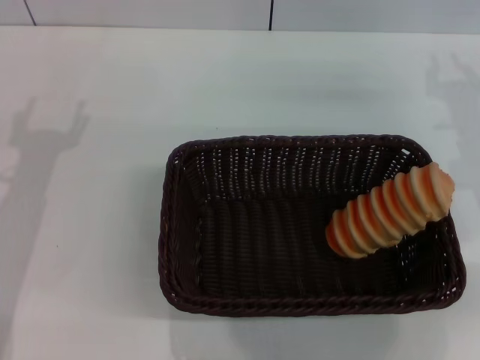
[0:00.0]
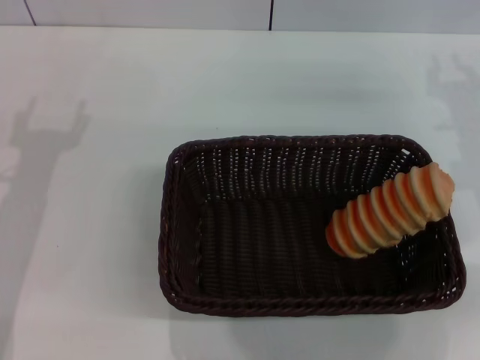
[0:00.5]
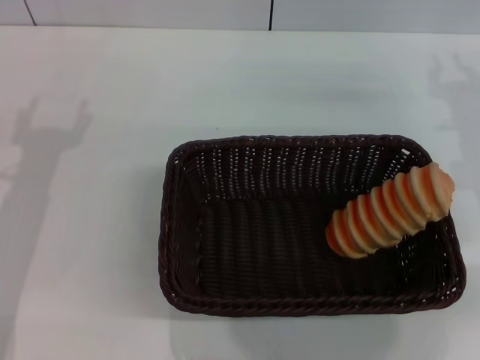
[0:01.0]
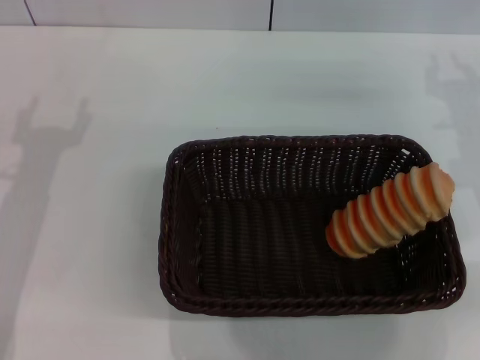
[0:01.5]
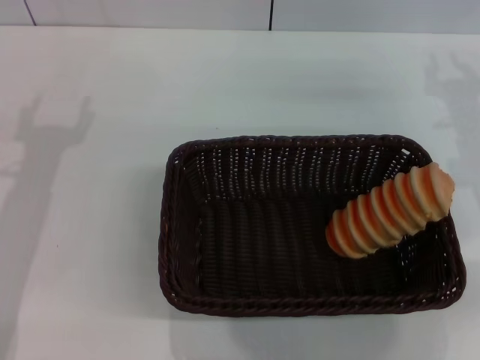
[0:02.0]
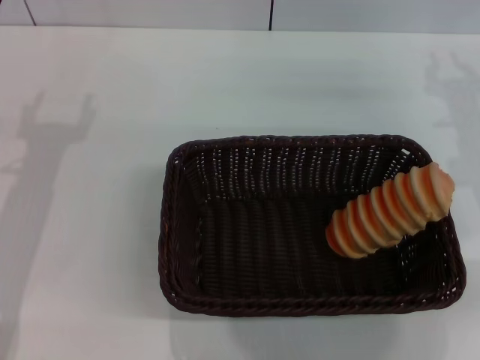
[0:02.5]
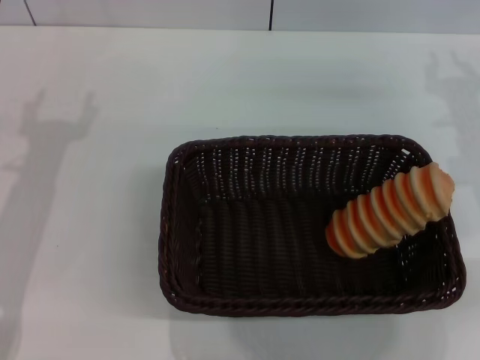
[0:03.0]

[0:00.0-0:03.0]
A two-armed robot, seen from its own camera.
0:00.0 to 0:01.5: The two grippers keep their place.
0:01.5 to 0:03.0: The two grippers keep their place.

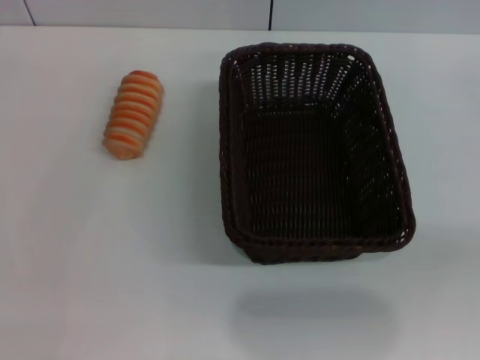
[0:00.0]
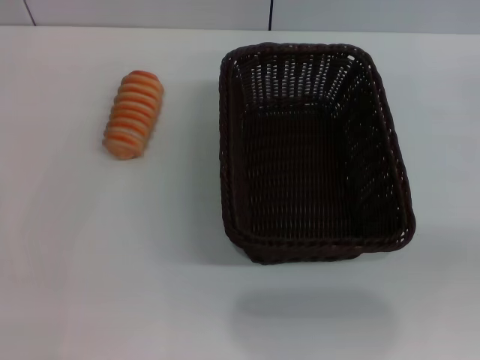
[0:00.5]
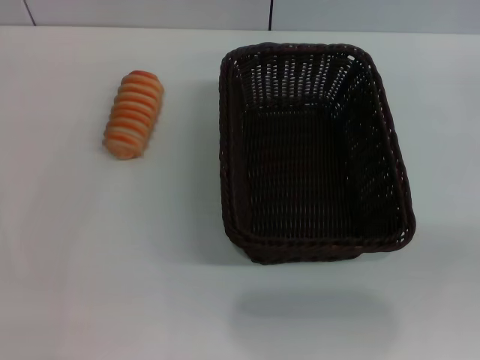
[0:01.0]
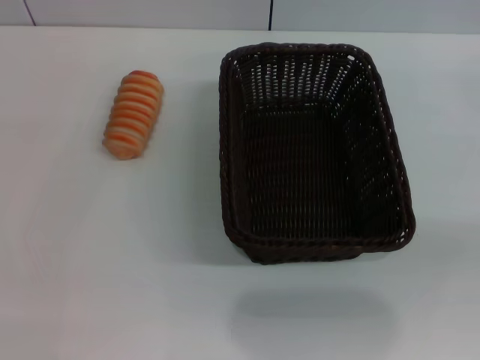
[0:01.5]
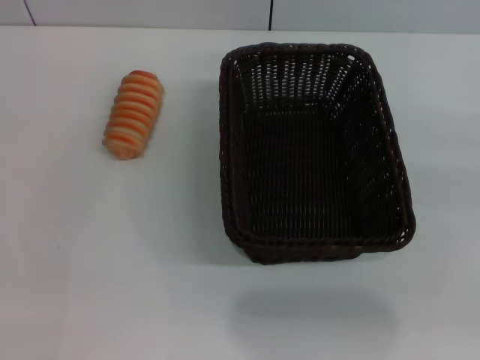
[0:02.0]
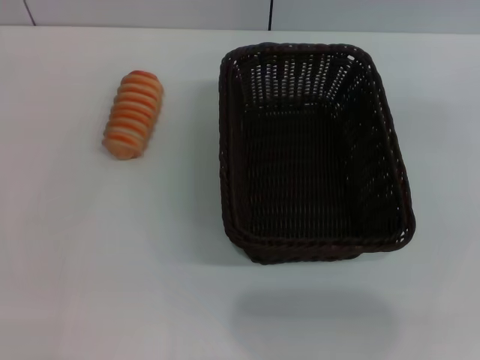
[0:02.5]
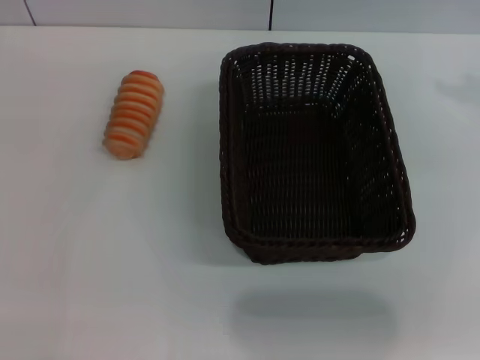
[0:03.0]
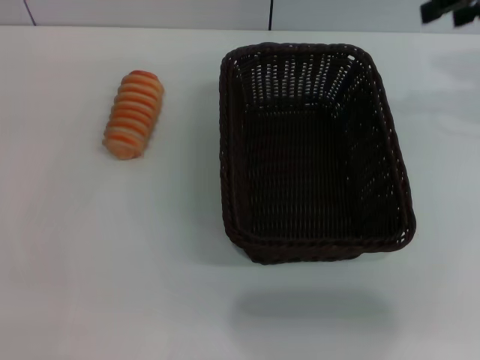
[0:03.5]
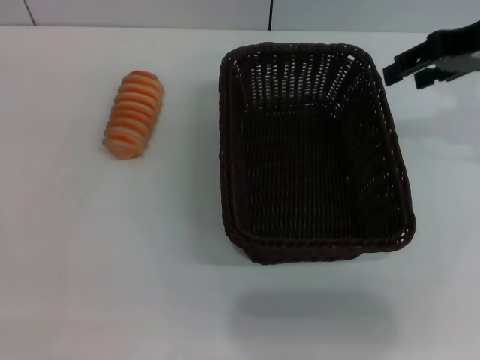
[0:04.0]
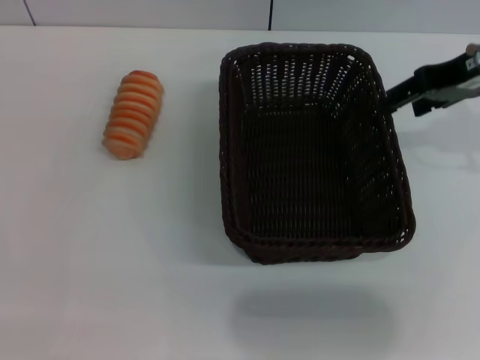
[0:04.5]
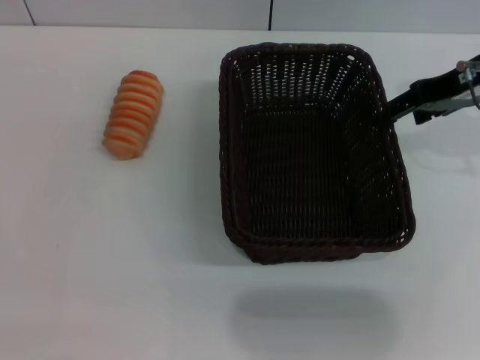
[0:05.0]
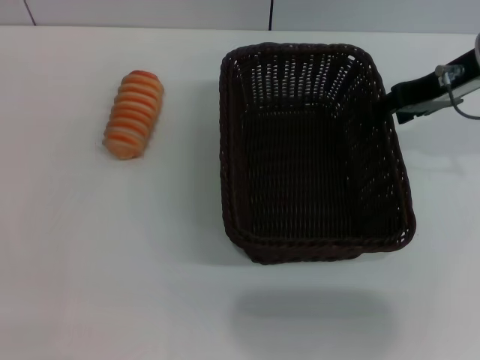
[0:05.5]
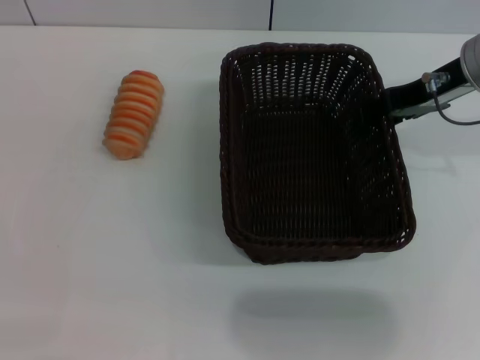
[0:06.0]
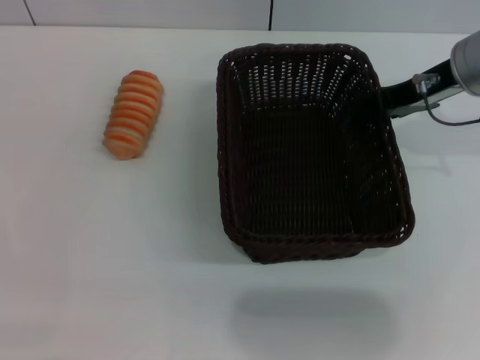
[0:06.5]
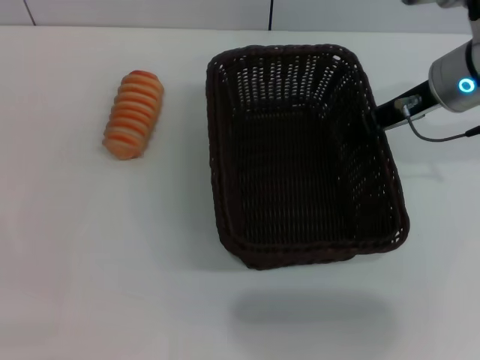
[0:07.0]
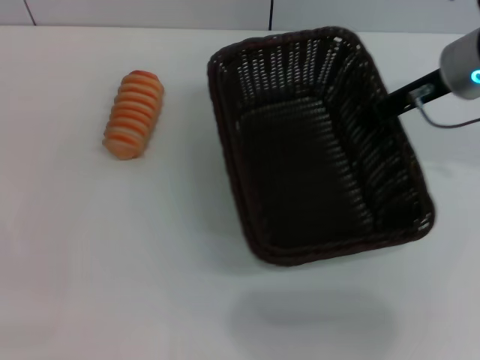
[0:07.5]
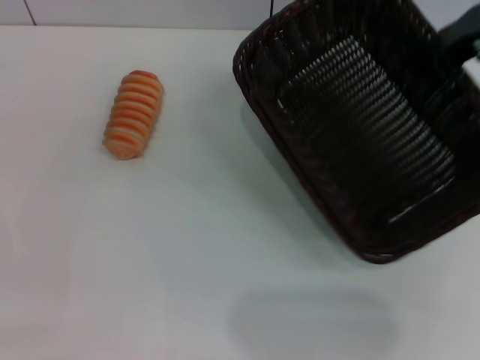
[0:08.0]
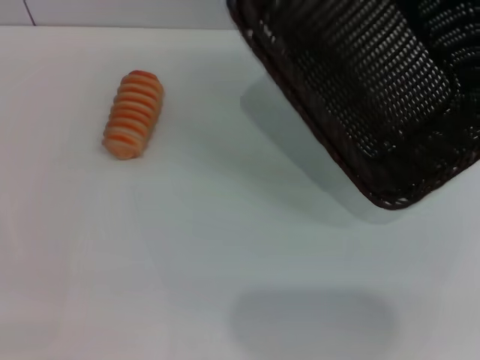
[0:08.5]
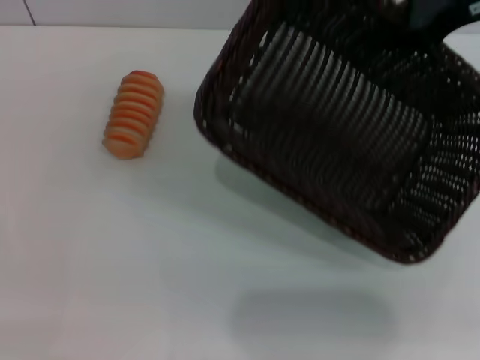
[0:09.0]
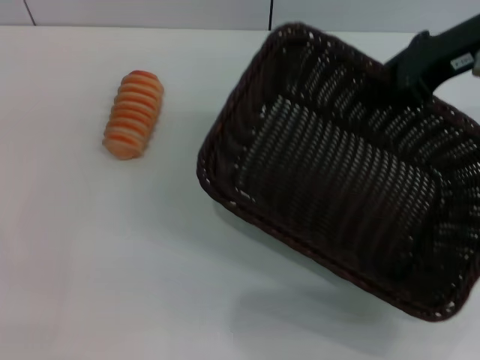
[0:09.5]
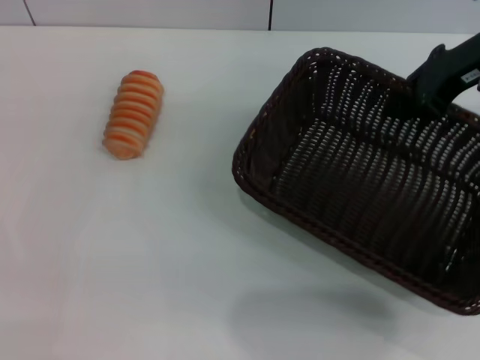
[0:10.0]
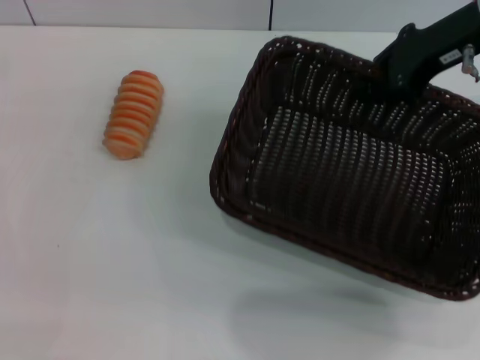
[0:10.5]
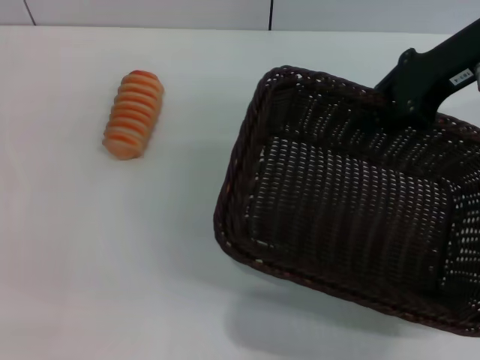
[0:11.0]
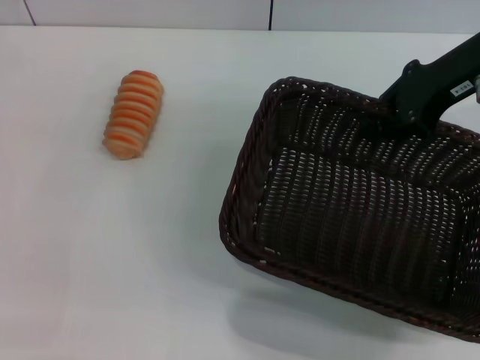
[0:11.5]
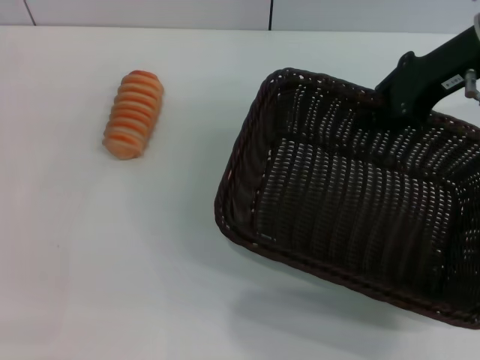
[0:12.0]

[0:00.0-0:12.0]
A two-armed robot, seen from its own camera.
Step, 0:00.0 to 0:08.0: Pick up the dark basket with the right gripper.
0:02.0 to 0:04.0: The right gripper goes some 25 cm to the left and forward.
0:04.0 to 0:06.0: The right gripper goes approximately 5 cm downward.
0:06.0 to 0:08.0: The right gripper heads upward, covering about 5 cm, and closes.
0:10.0 to 0:12.0: The grippers move only a little.

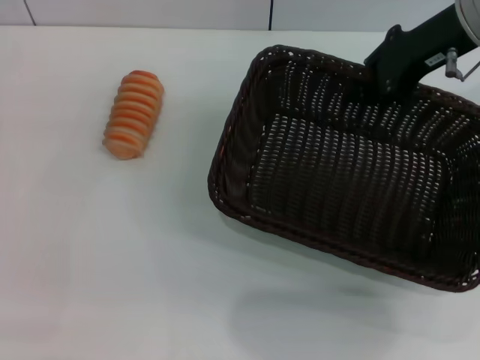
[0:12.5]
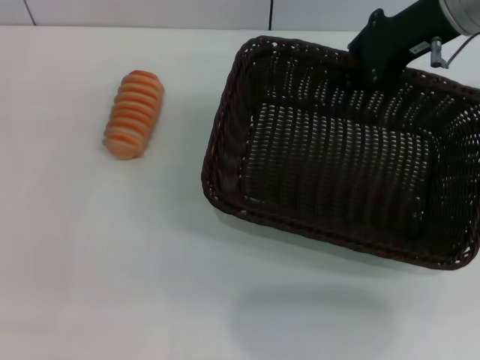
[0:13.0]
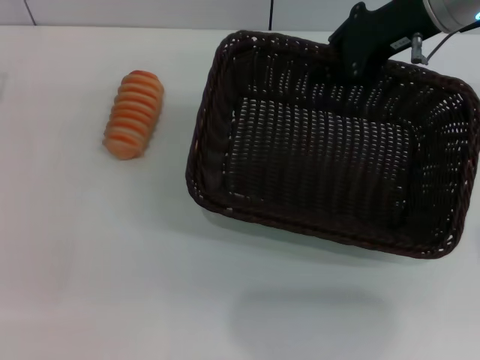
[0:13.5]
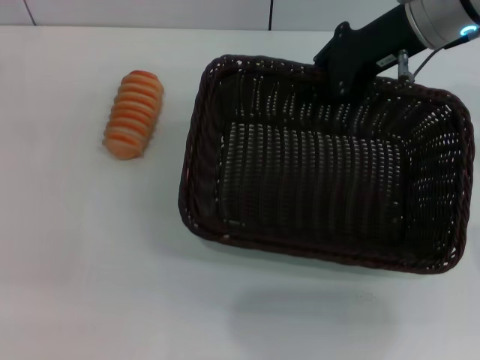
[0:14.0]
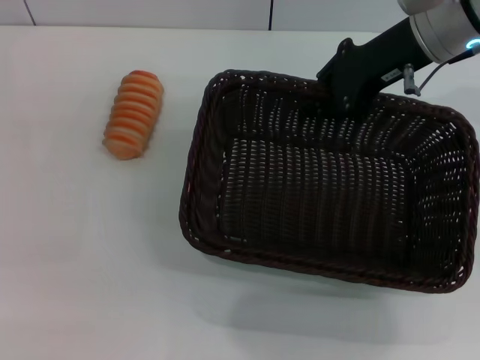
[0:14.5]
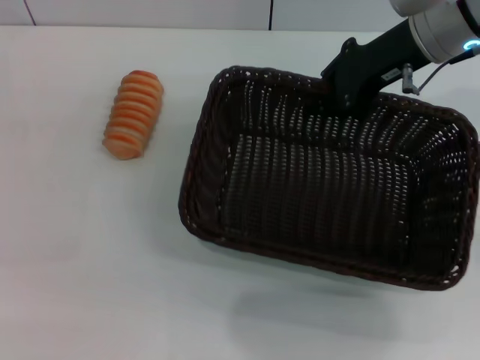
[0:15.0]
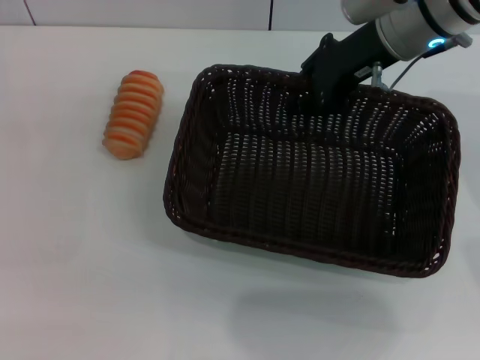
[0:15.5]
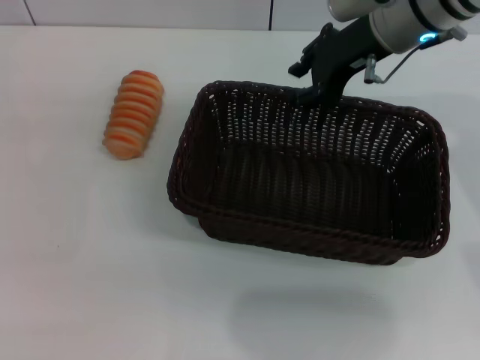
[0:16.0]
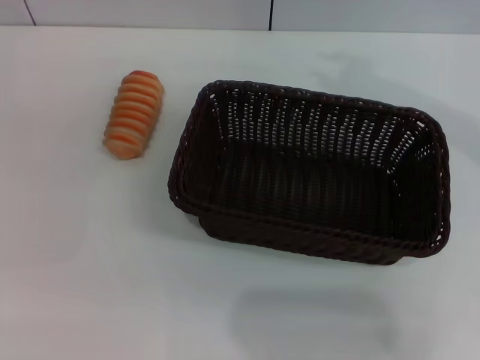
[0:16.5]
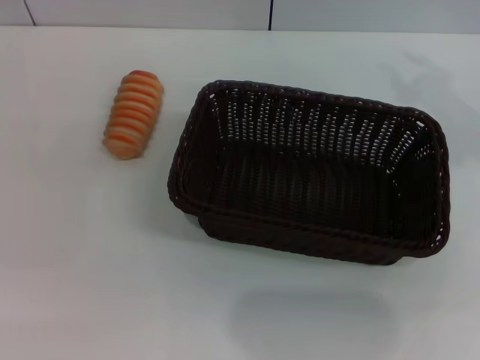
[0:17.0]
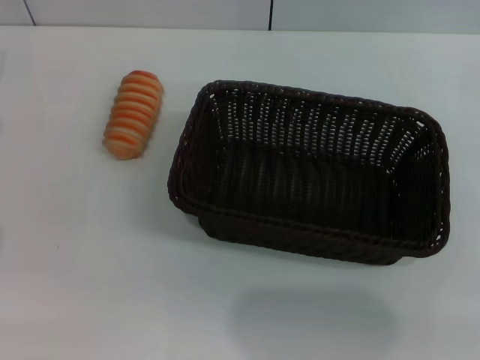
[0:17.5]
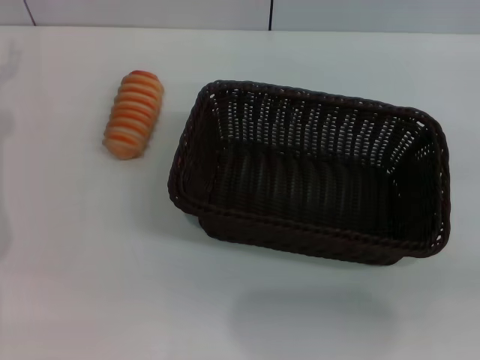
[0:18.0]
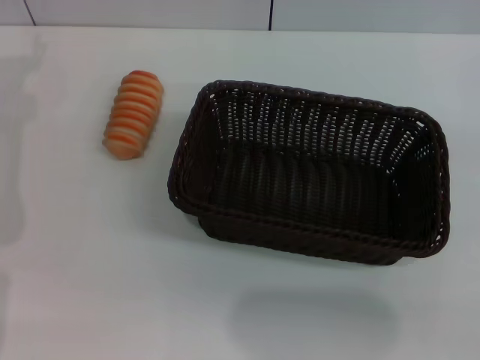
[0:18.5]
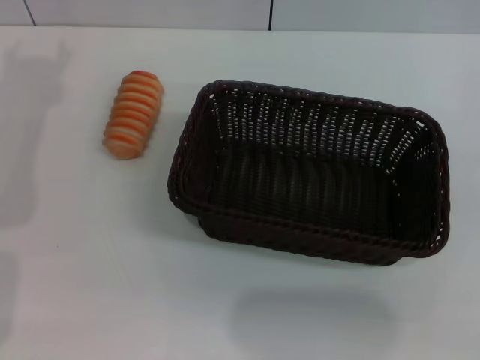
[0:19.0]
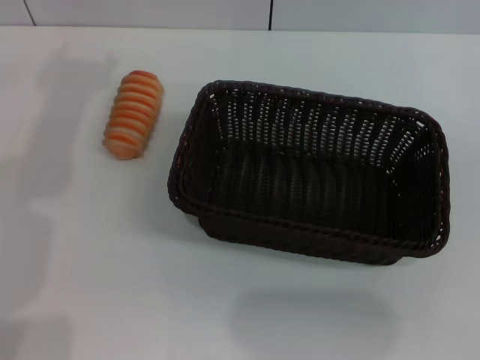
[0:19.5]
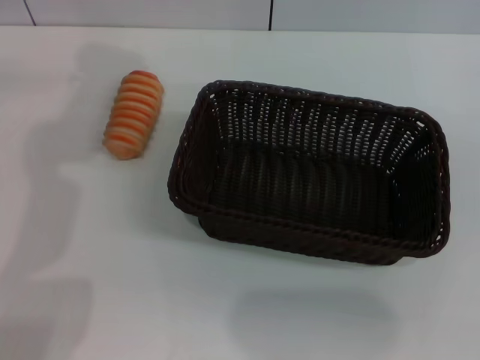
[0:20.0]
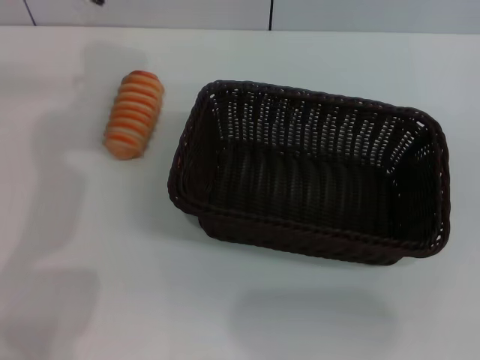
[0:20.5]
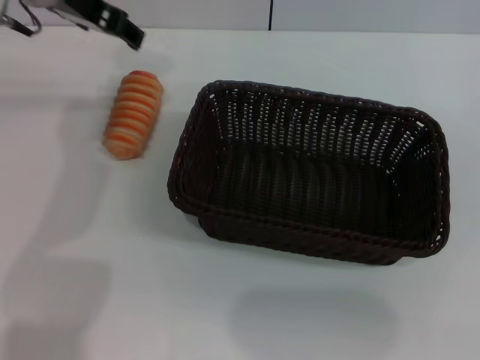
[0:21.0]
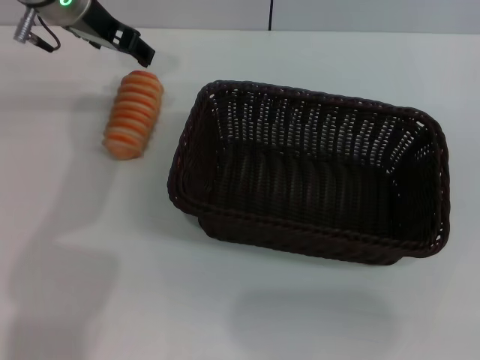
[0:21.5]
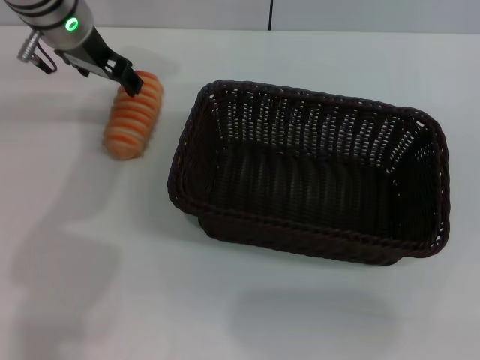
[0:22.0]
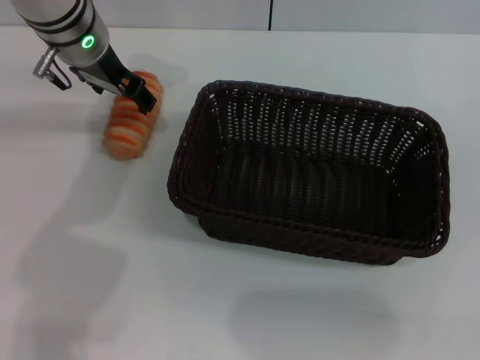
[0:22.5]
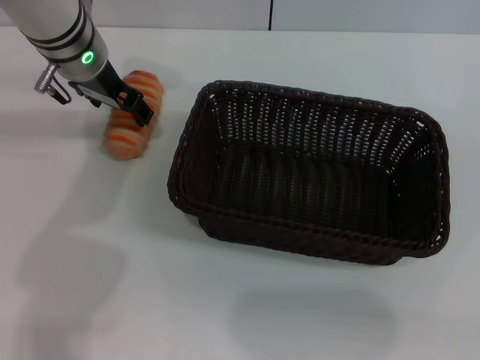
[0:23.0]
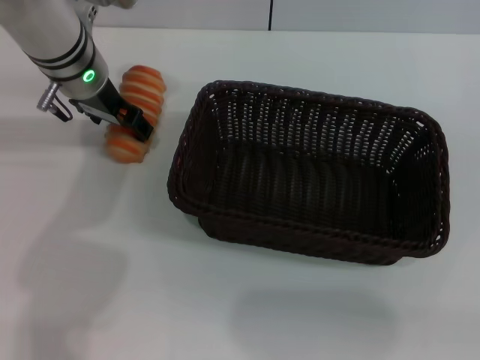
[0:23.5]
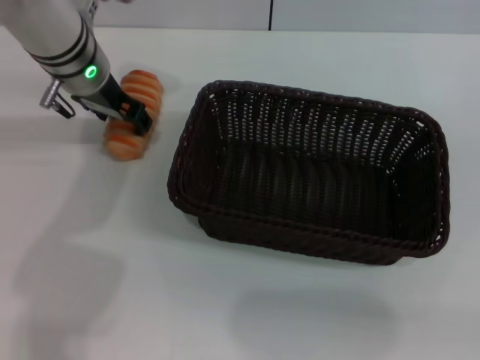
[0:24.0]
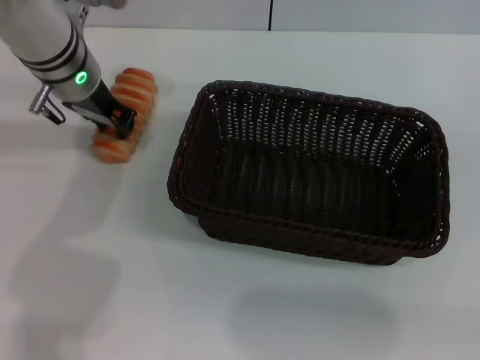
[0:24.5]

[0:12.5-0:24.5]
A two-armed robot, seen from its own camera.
Step, 0:12.5 to 0:16.0: Place the dark basket in the center of view with the right gripper.
0:12.5 to 0:14.5: The left gripper moves forward, approximately 5 cm.
0:14.5 to 0:16.5: The right gripper is displaced upward by about 10 cm, and opens.
0:18.5 to 0:20.5: The left gripper shifts about 10 cm to the right and upward.
0:20.5 to 0:22.5: The left gripper shifts approximately 10 cm downward.
0:22.5 to 0:24.5: The left gripper closes.
